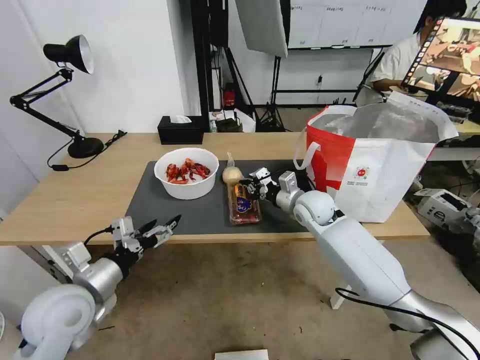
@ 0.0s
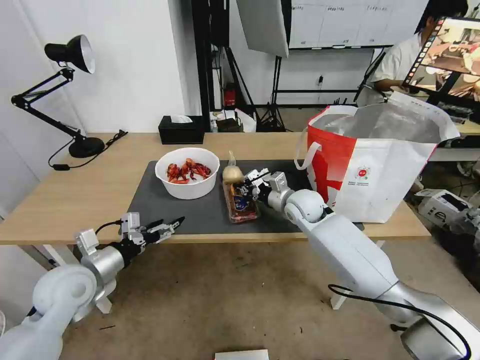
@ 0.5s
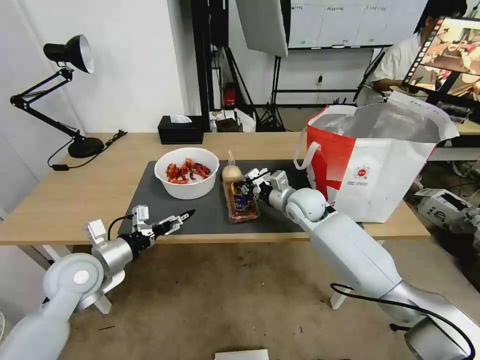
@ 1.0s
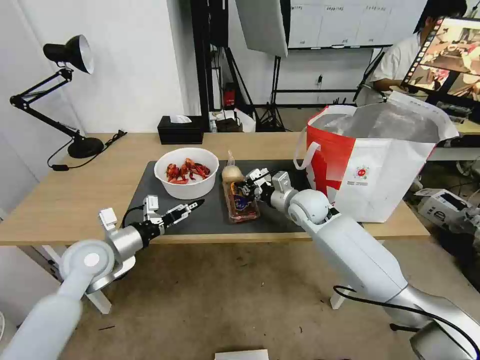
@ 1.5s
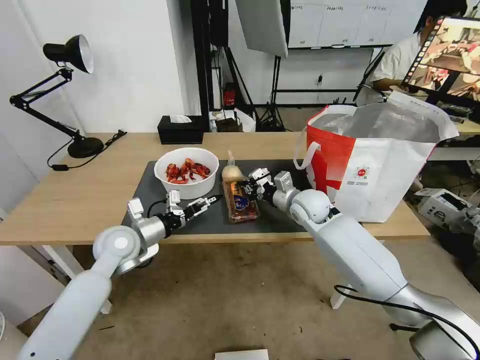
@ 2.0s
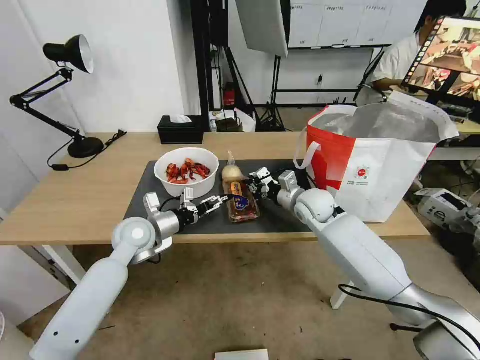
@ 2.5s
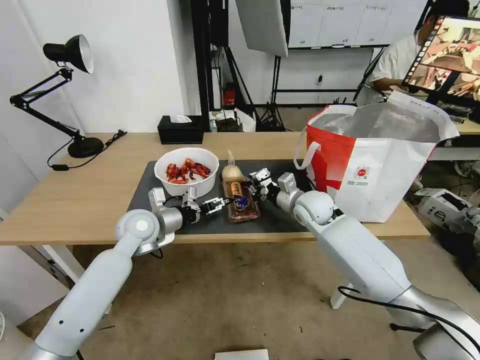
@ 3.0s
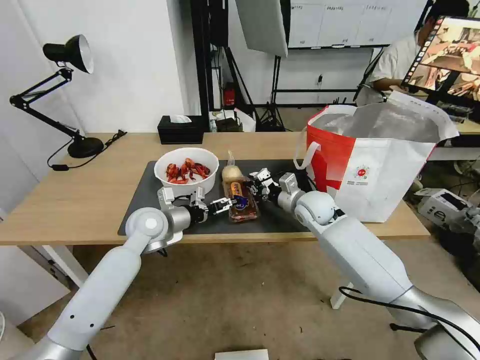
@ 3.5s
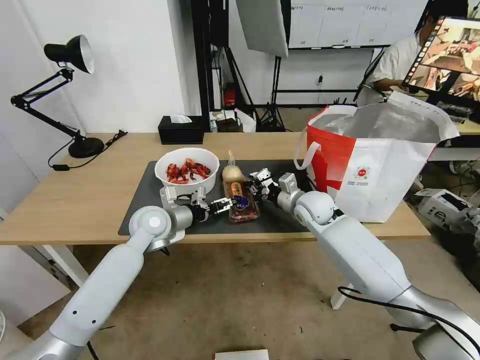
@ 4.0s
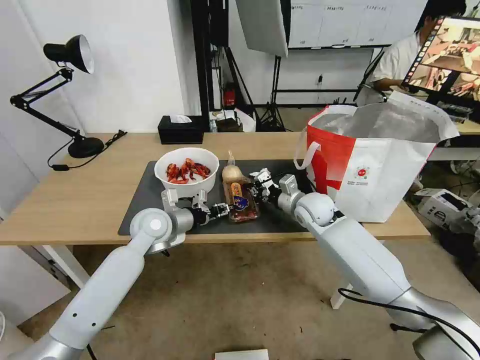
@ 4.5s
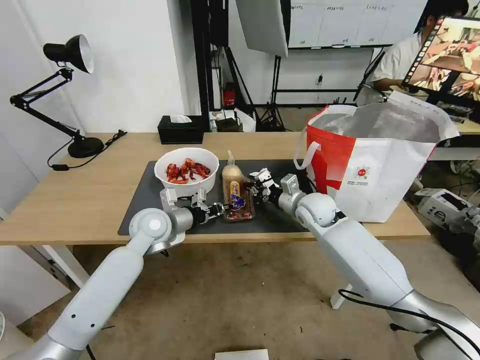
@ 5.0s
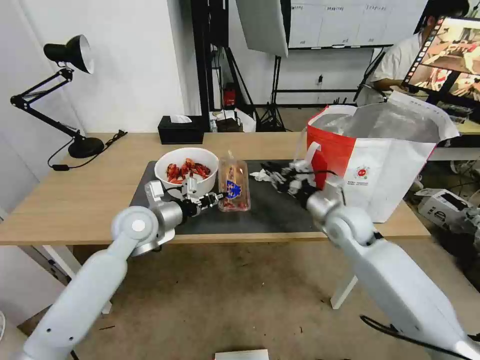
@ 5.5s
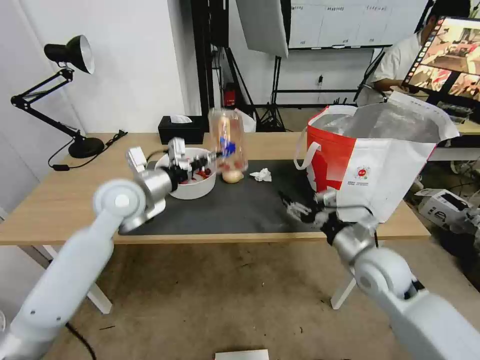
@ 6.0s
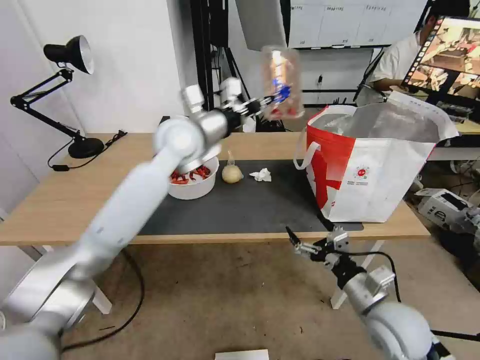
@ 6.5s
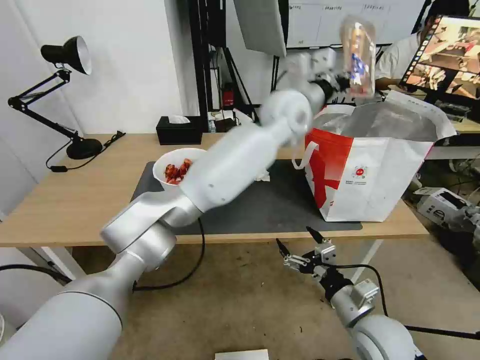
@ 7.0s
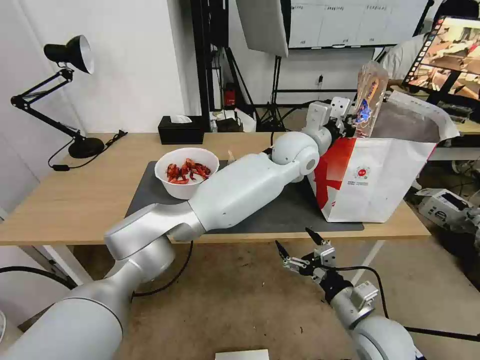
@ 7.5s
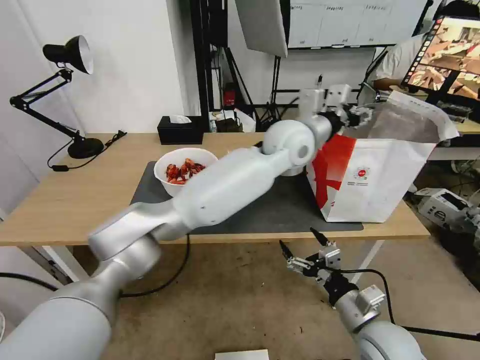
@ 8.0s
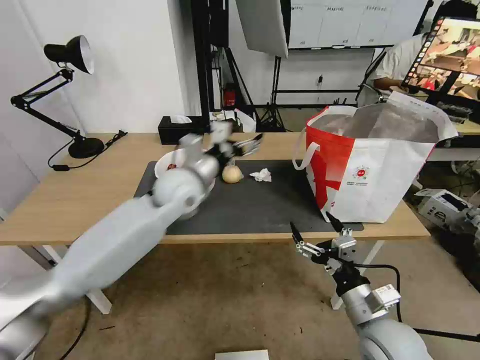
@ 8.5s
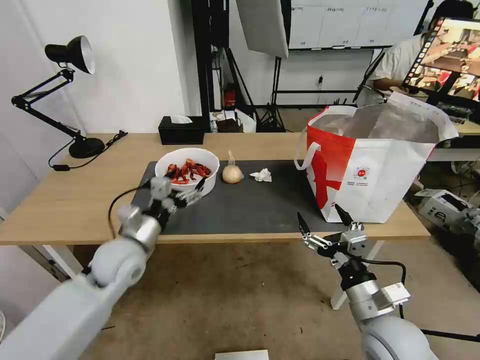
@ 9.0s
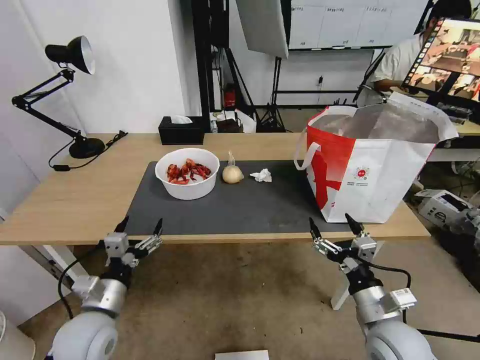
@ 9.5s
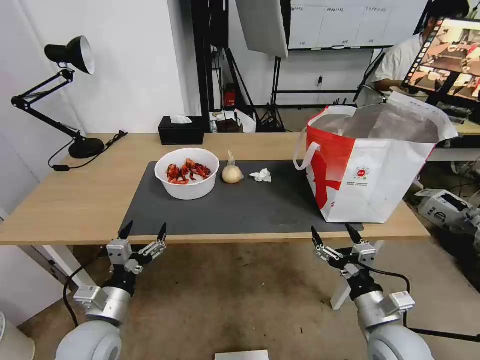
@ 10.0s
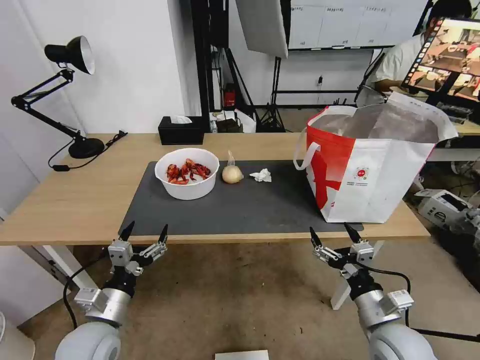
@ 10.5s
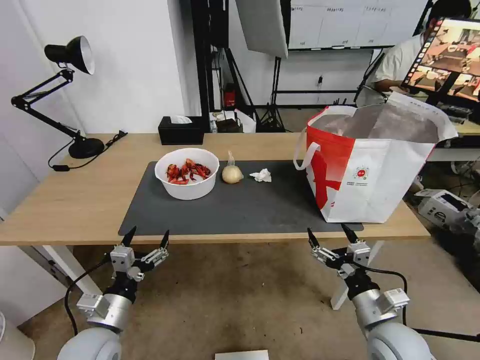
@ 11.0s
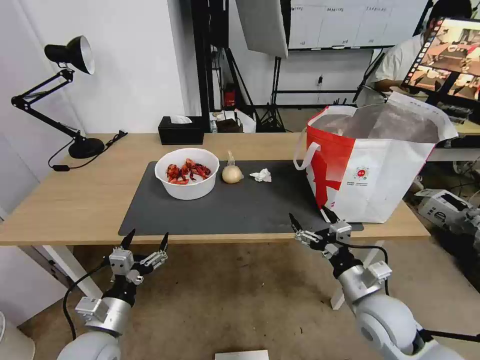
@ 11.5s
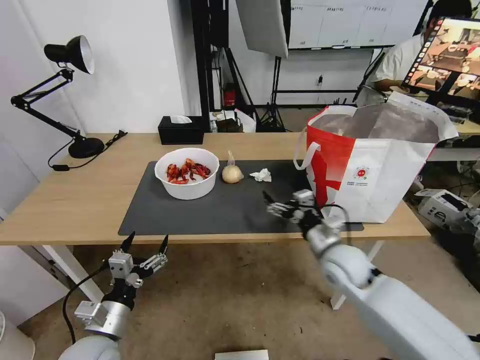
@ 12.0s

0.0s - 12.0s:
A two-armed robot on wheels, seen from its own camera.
Task of the whole recording: Pick up the trash from the table and place it into the takeout bag.
0.0s - 2.0s: The left gripper is displaced forward by approximately 15 cm.
2.0s - 4.0s: The left gripper travels to the right and forward by about 10 cm.
4.0s - 6.0s: The left gripper shifts approximately 10 cm upward, and closes up. Meanwhile the right gripper is displaced backward and to the right by about 20 cm, and opens up.
6.0s - 8.0s: The left gripper moves to the right, some 35 cm, and opens up; the right gripper moves backward and downward, about 15 cm.
8.0s - 10.0s: The left gripper shifts approximately 50 cm to the left, backward and downward, and opens.
10.0s - 12.0s: The right gripper shifts roughly 15 cm forward.

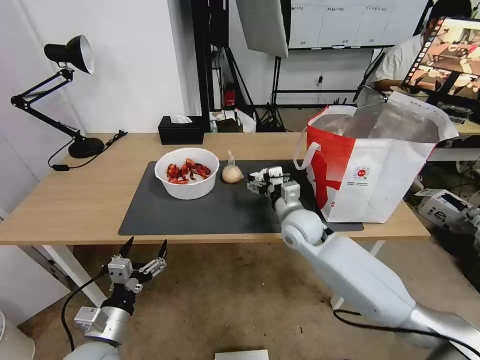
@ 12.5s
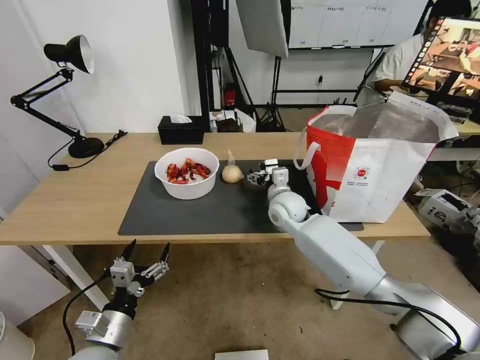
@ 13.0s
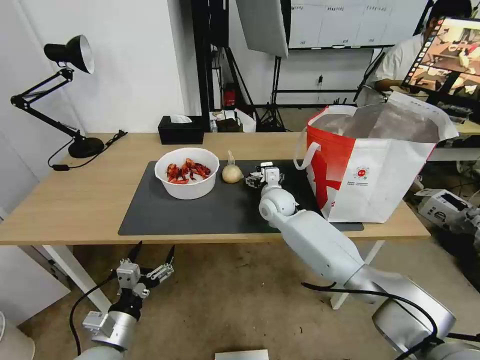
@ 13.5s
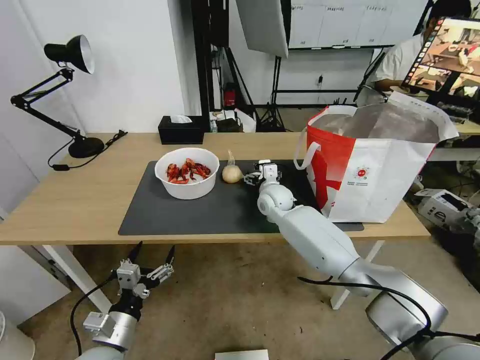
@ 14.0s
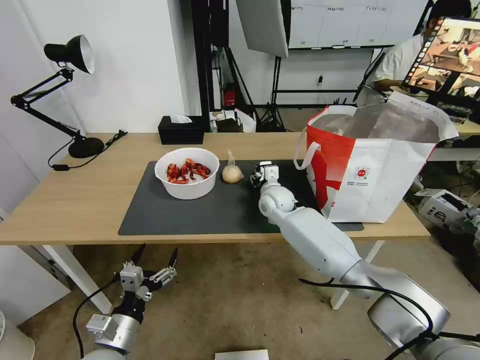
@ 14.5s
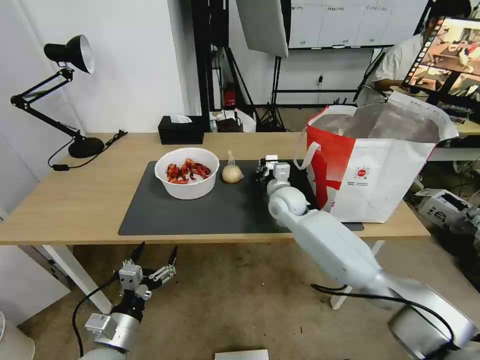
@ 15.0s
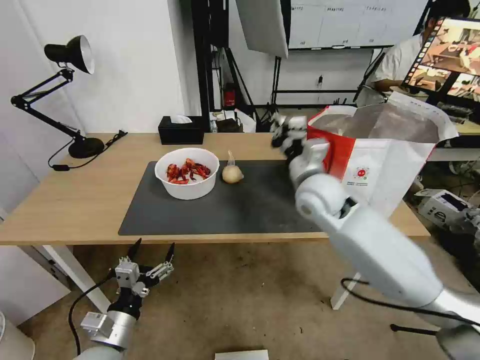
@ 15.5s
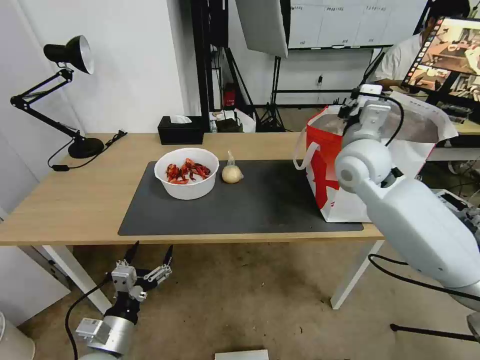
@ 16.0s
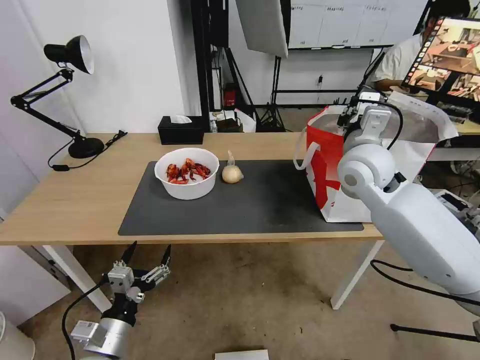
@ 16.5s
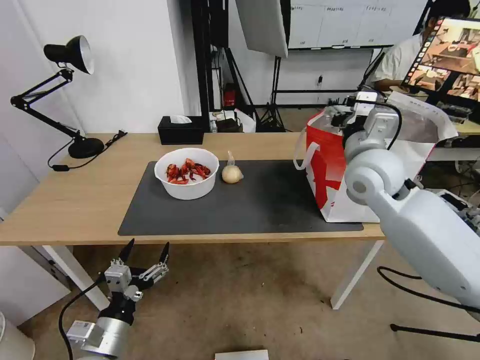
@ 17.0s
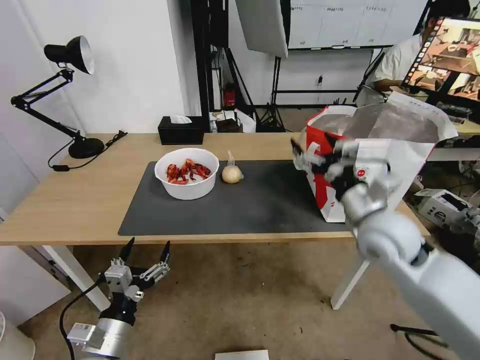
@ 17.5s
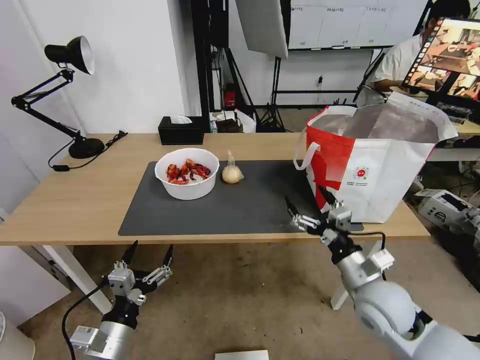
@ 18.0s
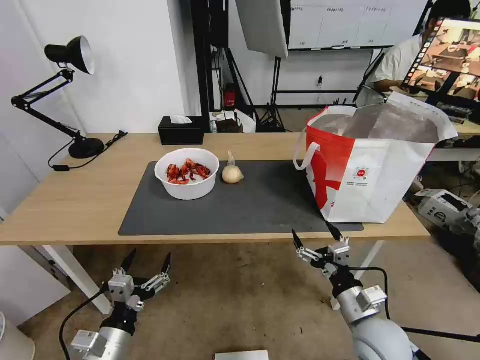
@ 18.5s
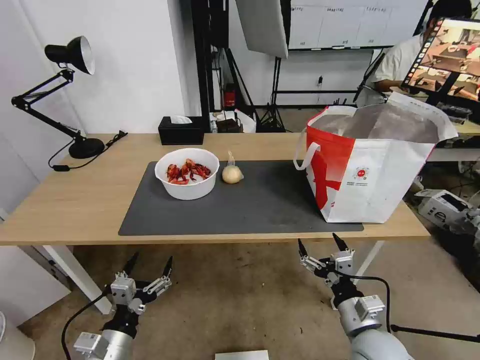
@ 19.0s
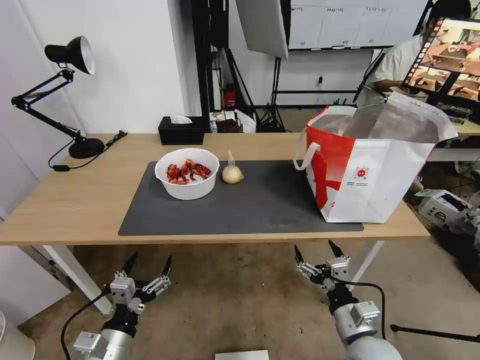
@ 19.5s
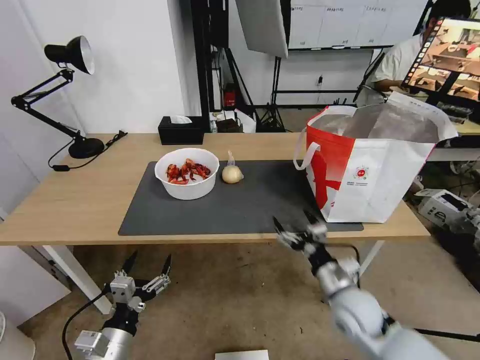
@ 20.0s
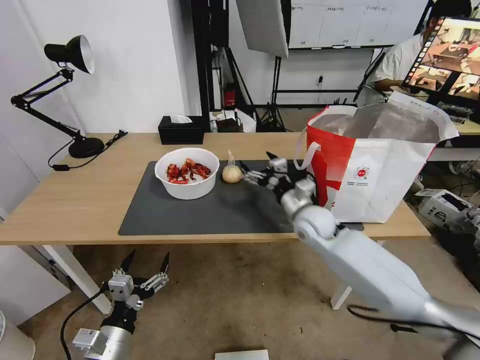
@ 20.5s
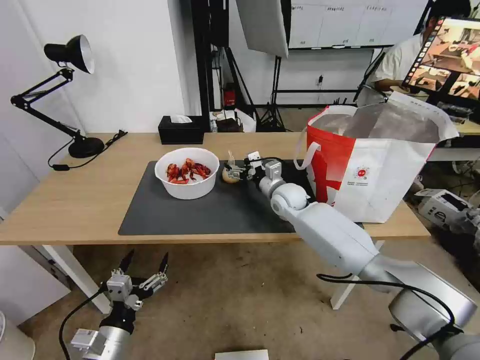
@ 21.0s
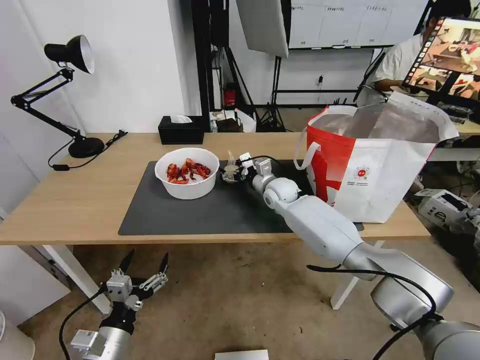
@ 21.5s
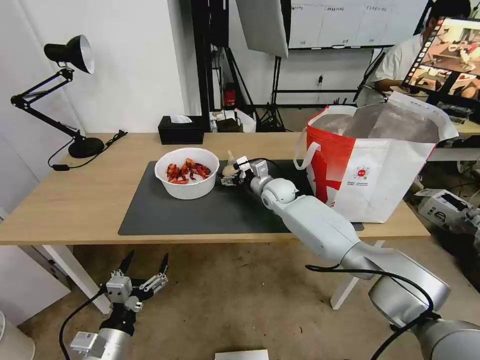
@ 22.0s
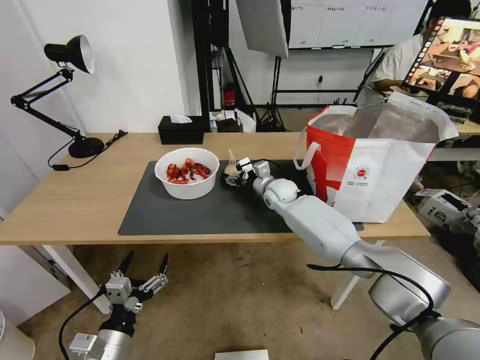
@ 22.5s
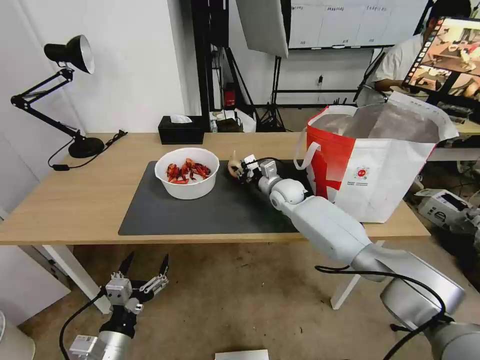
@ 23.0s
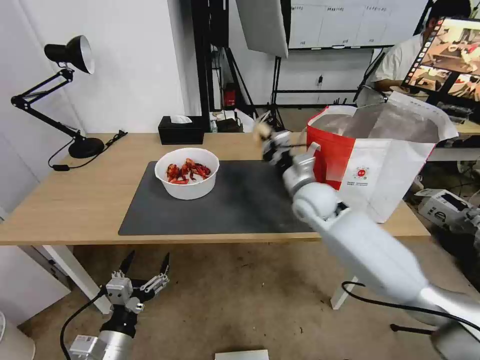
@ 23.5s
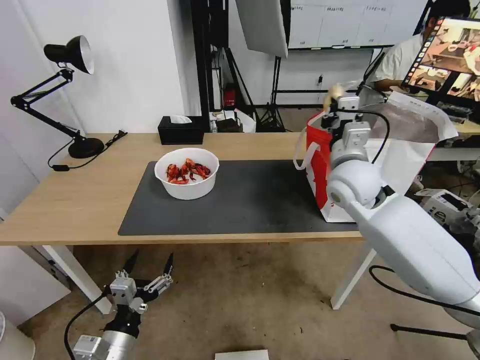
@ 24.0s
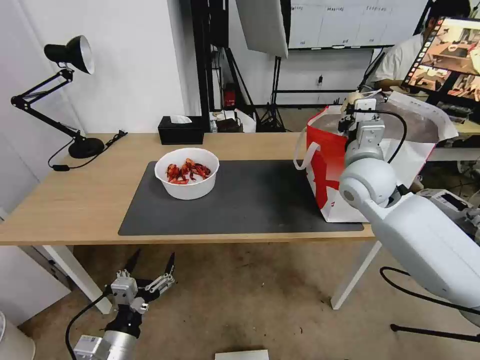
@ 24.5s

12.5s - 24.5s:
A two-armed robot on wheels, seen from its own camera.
Task of the whole recording: Pick up the trash from the table and place it into the takeout bag.
12.5s - 14.5s: The right gripper shifts approximately 10 cm forward, and closes.
14.5s - 16.5s: The right gripper shifts roughly 25 cm upward, to the right and backward.
16.5s - 18.5s: The right gripper moves downward and backward, roughly 35 cm, and opens its fingers.
18.5s - 20.5s: The right gripper shifts approximately 25 cm forward.
20.5s - 22.5s: The right gripper shifts roughly 15 cm forward and to the left.
22.5s - 24.5s: The right gripper travels upward, backward and to the right by about 25 cm, and closes up.

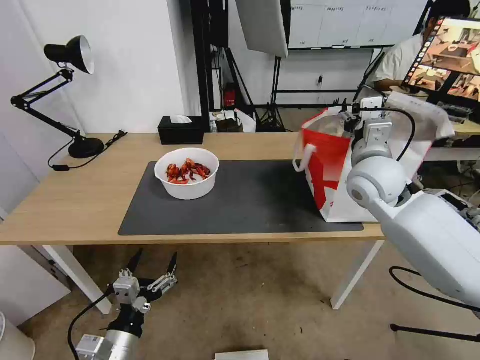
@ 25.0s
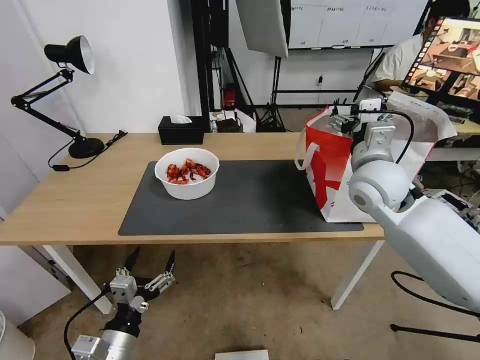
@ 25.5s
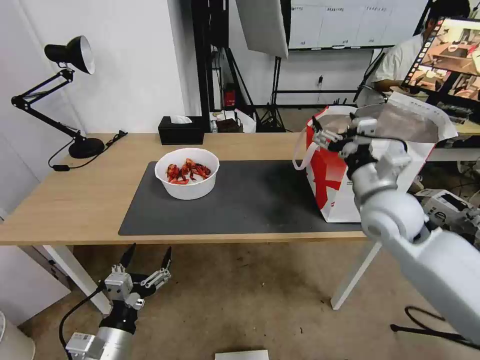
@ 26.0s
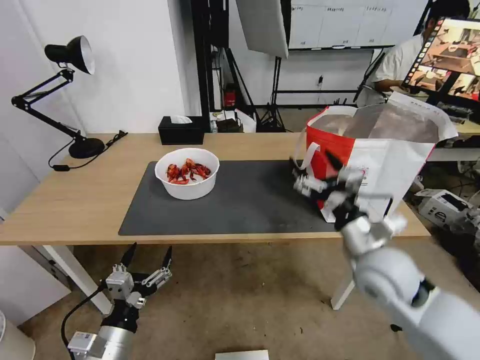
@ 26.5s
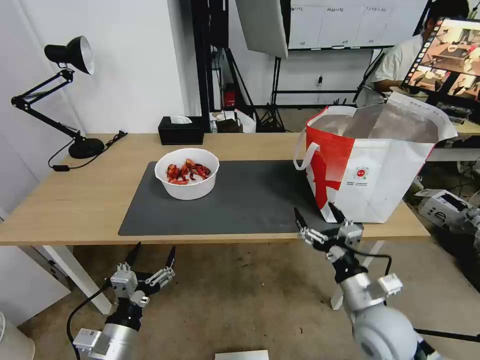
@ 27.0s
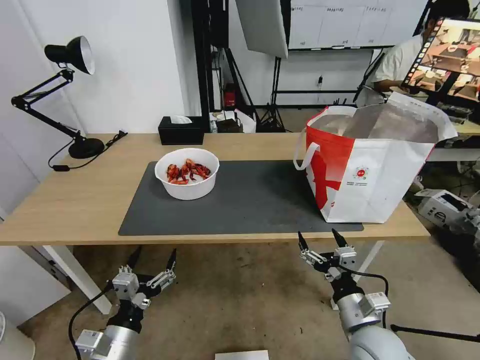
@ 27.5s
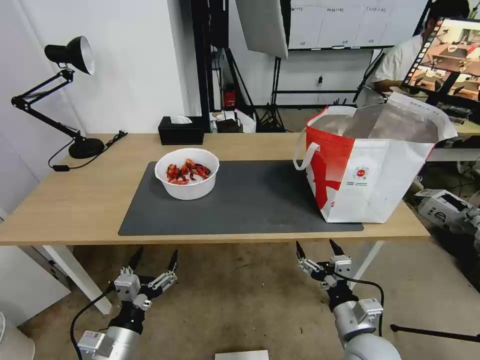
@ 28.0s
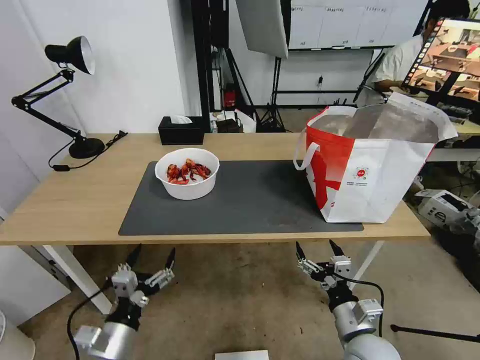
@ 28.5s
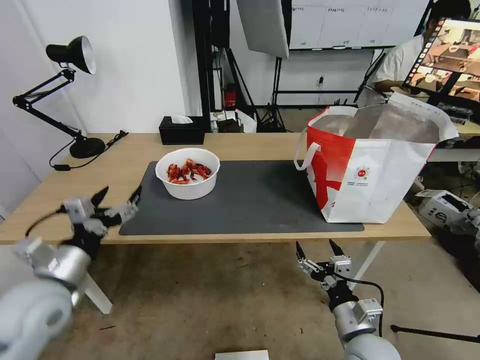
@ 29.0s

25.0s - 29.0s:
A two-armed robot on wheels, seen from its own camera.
Task of the whole recording: Pick up the trash from the table and place it into the takeout bag.
25.0s - 27.0s: The right gripper travels backward and downward by roughly 30 cm.
27.0s - 29.0s: The left gripper moves upward, forward and to the left, approximately 20 cm. The right gripper moves downward, approximately 5 cm.
